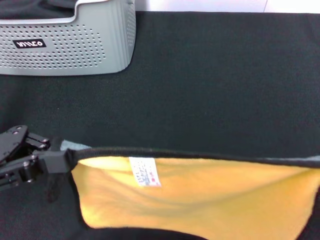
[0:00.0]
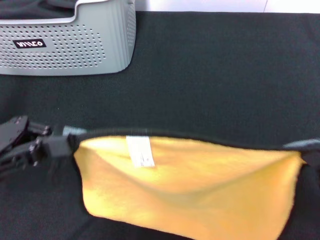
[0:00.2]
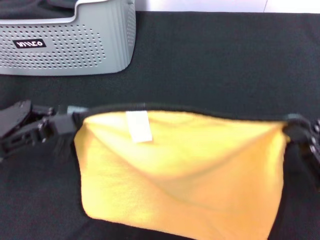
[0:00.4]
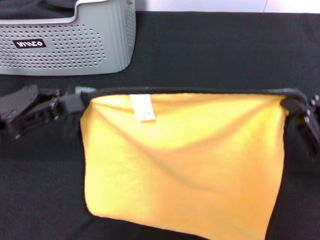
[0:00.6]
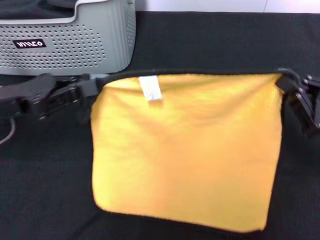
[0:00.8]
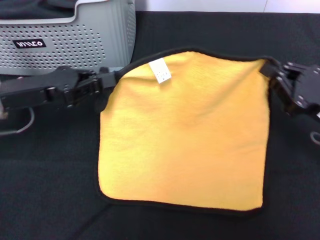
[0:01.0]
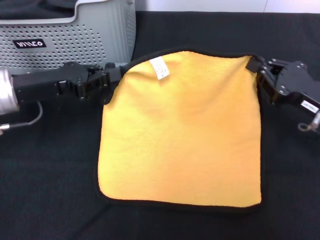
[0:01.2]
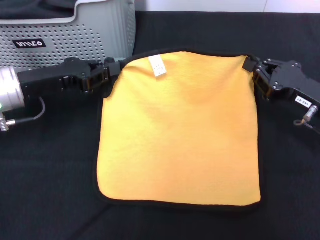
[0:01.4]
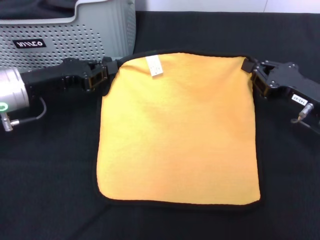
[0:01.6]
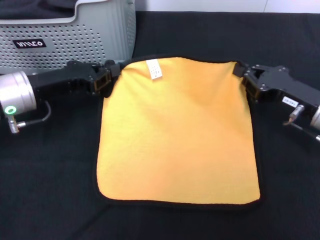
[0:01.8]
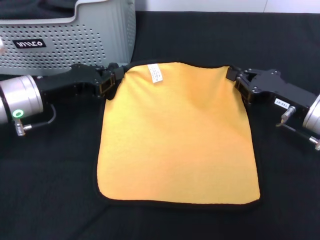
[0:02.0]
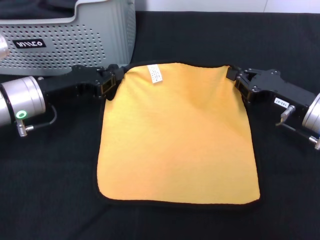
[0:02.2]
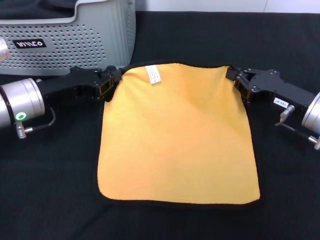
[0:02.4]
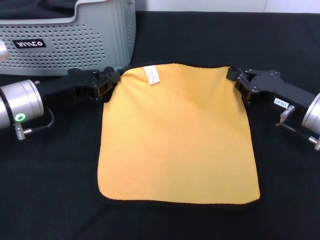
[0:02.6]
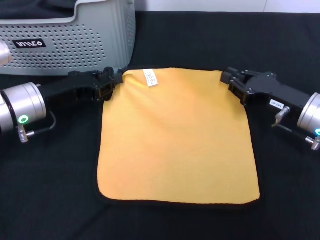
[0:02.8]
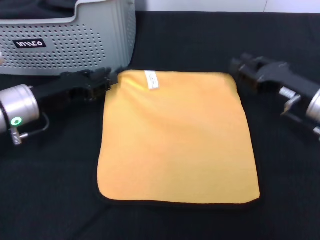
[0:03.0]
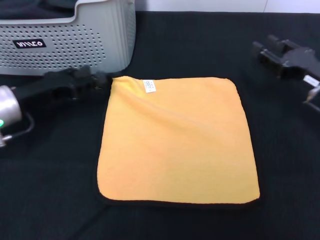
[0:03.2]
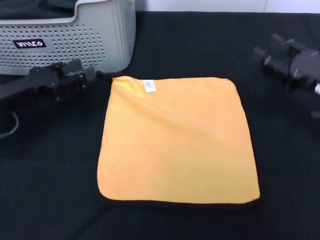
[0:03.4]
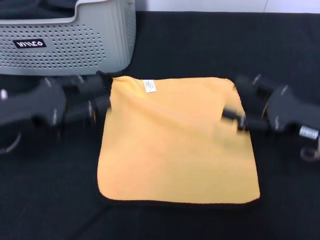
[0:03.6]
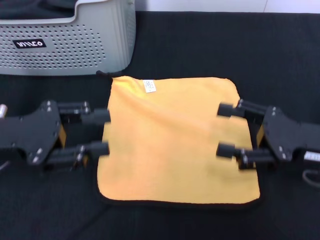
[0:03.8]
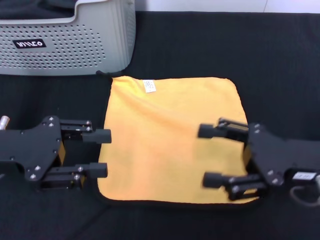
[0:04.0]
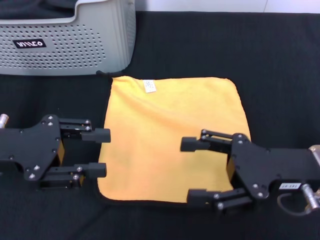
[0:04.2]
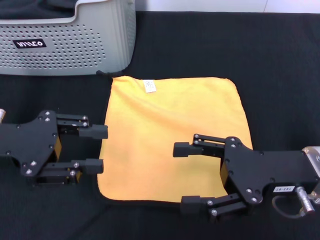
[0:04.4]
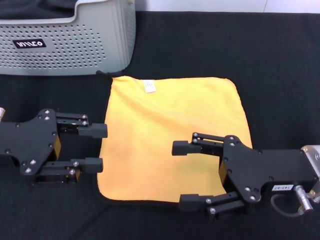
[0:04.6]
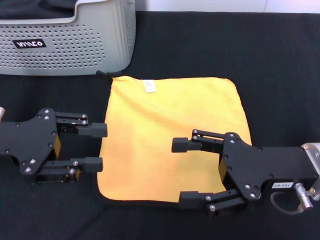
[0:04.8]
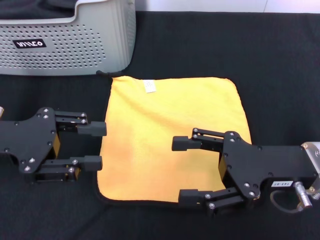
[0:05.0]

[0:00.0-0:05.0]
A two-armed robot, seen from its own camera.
Task of the whole recording: pick up the towel from the storage box and lay it flat on the black tablecloth.
Step, 0:00.0 to 0:03.0: Spread the towel flat with the right gripper.
0:00.0 to 0:01.6: The right gripper goes about 20 cm forward, while the left gripper heads forward and downward, covering about 15 cm.
0:01.6 to 0:03.4: The right gripper opens up, while the left gripper ends up approximately 5 cm from where it was, and opens.
0:03.4 to 0:05.0: The right gripper travels to the left and backward by some 10 cm, and opens up. Meanwhile the left gripper shifts by approximately 5 cm.
